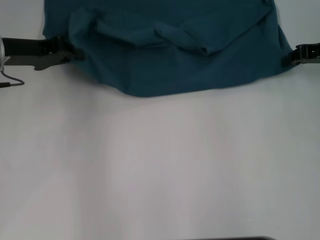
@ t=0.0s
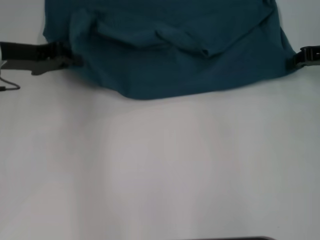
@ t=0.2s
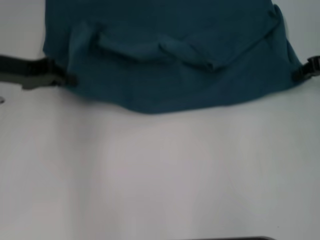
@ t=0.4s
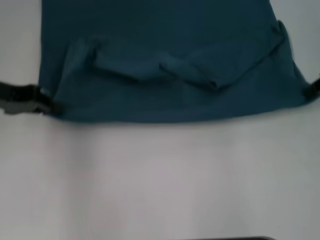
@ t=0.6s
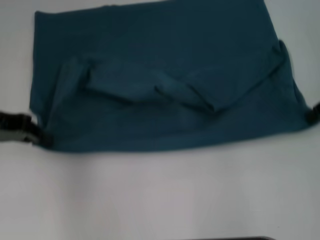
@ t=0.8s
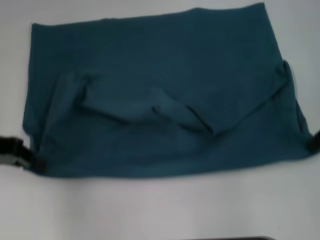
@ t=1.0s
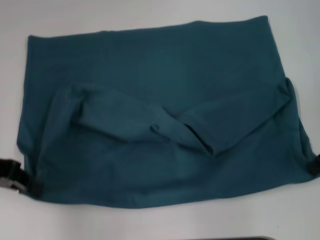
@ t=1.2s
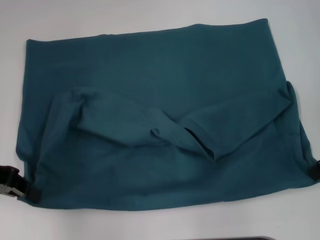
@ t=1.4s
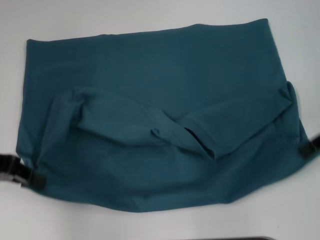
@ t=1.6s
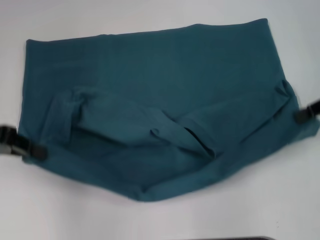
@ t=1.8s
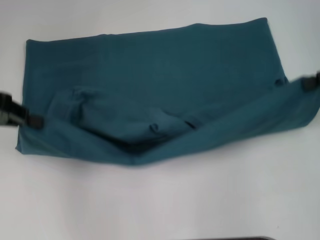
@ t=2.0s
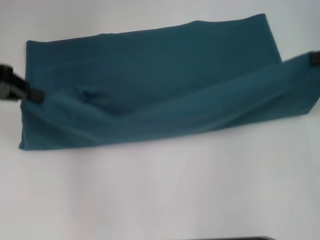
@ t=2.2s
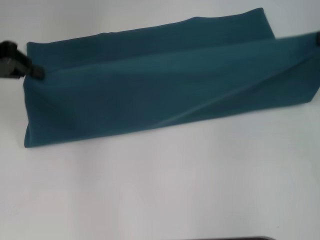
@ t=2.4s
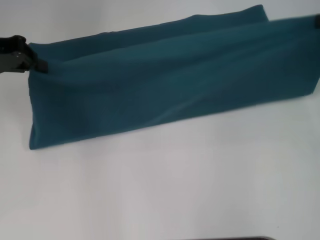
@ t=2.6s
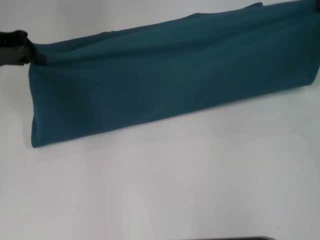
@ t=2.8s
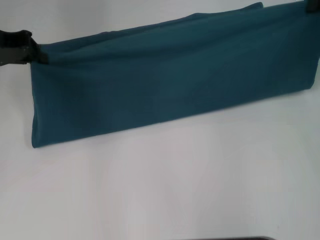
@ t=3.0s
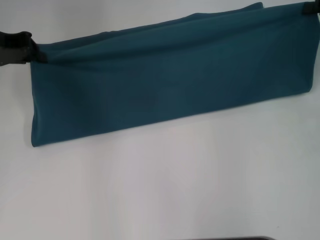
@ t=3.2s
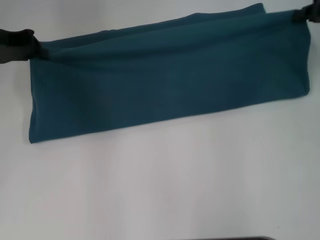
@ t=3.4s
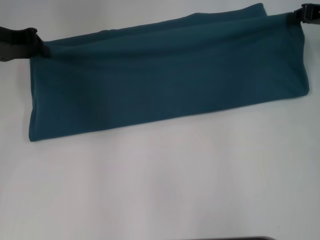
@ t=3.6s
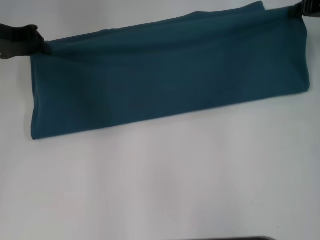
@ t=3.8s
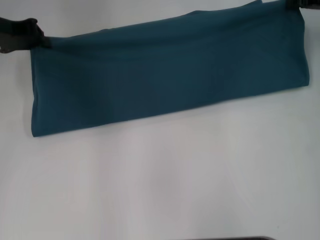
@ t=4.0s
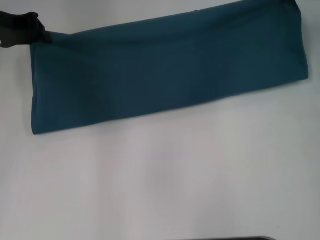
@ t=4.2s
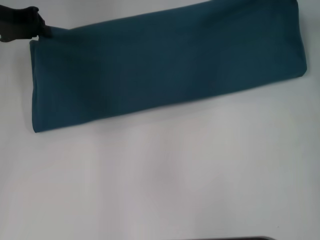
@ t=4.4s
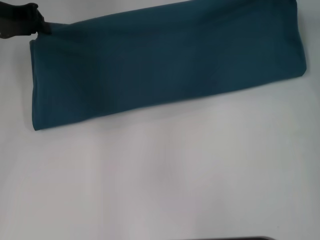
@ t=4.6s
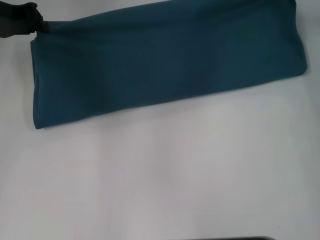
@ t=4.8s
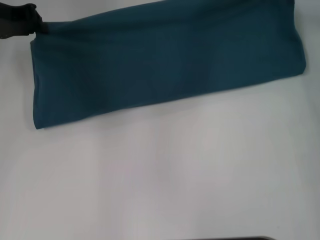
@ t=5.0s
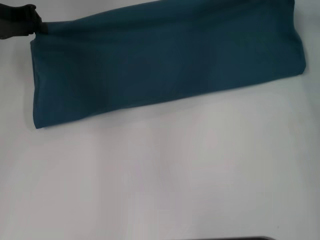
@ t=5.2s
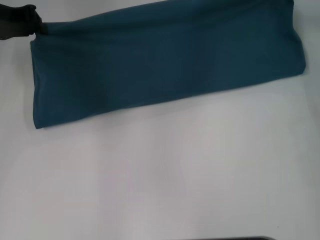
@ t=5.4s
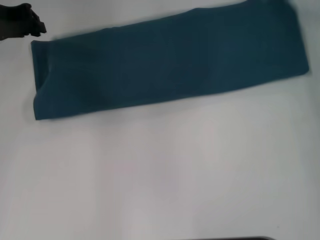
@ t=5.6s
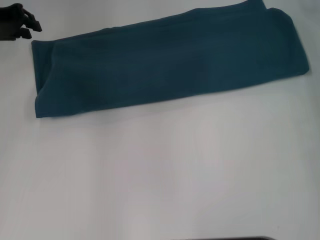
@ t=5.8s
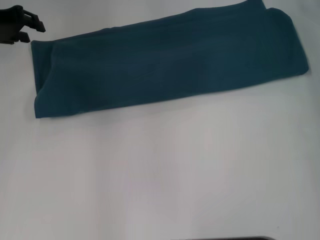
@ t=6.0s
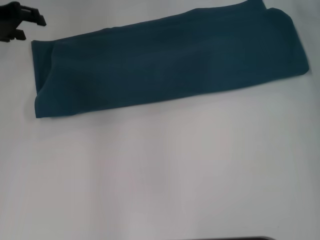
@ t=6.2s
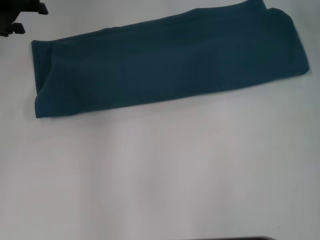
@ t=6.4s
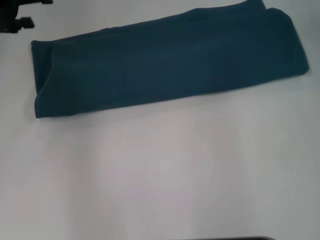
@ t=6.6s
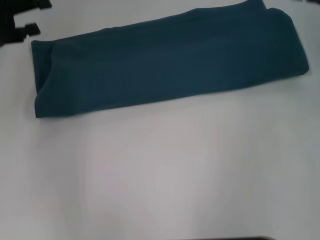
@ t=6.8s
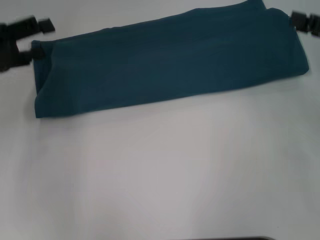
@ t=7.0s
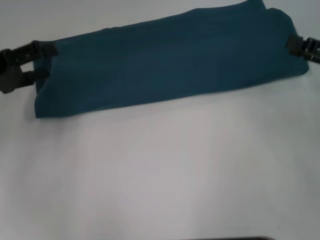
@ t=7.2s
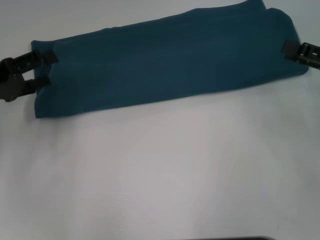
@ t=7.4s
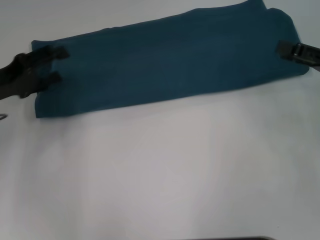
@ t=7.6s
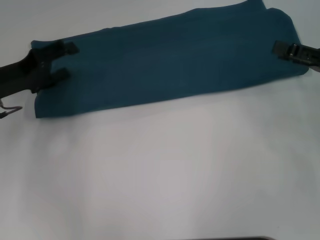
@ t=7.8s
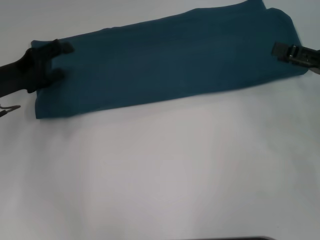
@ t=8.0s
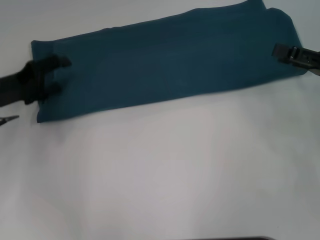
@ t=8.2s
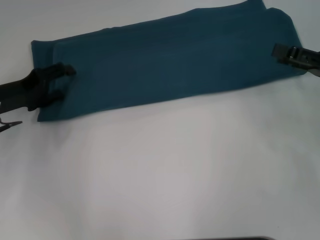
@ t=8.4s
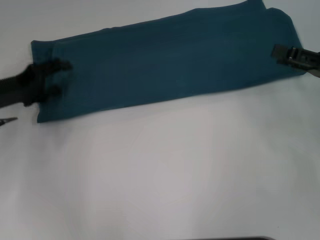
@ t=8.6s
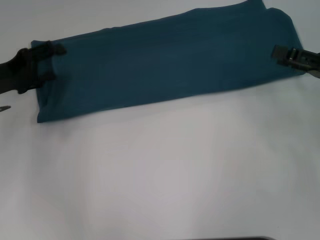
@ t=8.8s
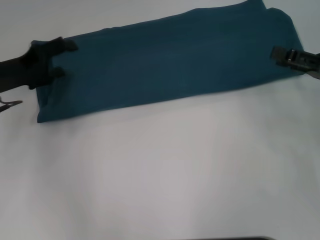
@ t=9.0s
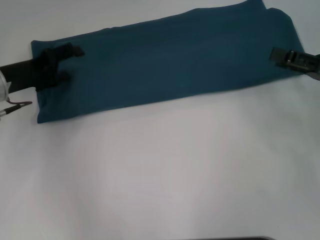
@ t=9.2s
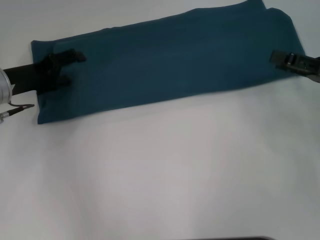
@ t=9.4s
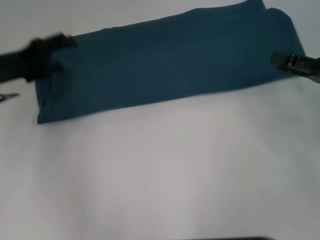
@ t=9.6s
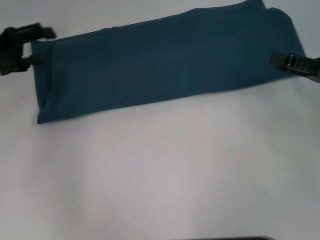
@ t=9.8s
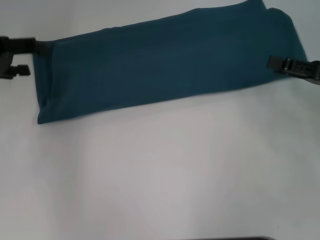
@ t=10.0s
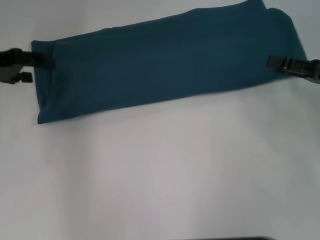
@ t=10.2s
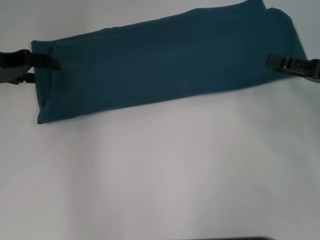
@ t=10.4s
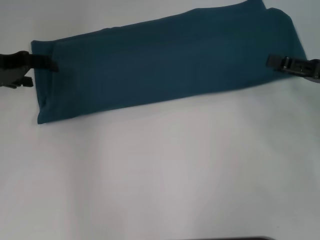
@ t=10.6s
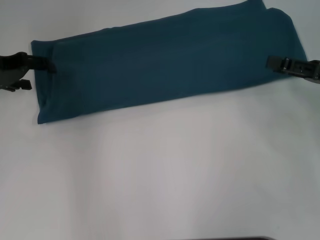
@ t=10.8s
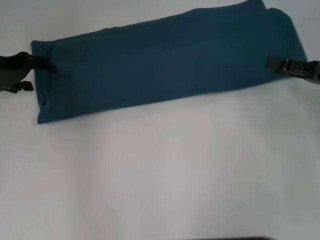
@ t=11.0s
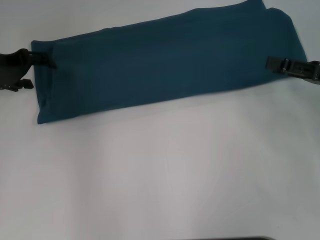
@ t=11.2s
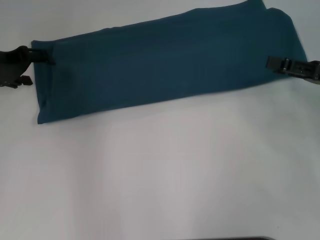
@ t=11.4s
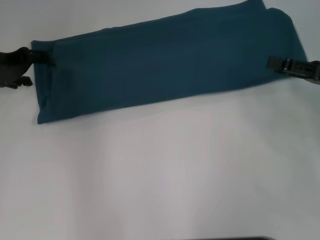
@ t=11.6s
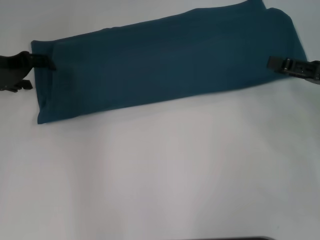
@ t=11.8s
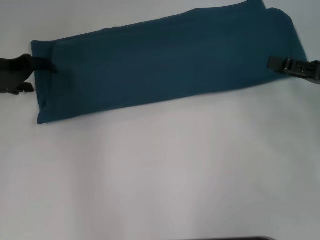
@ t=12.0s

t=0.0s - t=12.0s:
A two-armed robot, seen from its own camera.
Step, t=1.4s - t=5.6s: Fold the clothes to the left.
Step, t=1.4s - t=5.6s: Fold the clothes to the right.
t=0.0s - t=1.6s: Both grippers move backward, roughly 10 cm.
t=1.6s - t=3.0s: The right gripper is displaced forward by approximately 5 cm, while the left gripper shifts some 10 cm forward.
t=3.0s - t=4.4s: The right gripper moves to the left and forward, roughly 10 cm.
t=4.4s - t=6.0s: The grippers make only small movements.
t=6.0s - t=7.6s: The right gripper is displaced backward and downward by approximately 20 cm, and opens. The left gripper travels backward and downward by approximately 15 cm, and opens its fingers.
t=7.6s - t=9.0s: The grippers stay close to where they were, moving slightly.
t=9.0s - t=10.4s: The left gripper moves upward, some 5 cm.
t=10.4s - t=12.0s: There are only small adjustments of the grippers.

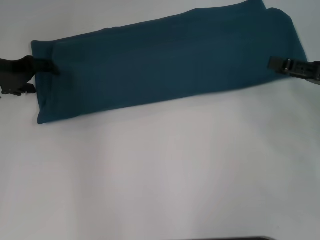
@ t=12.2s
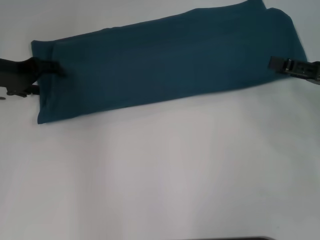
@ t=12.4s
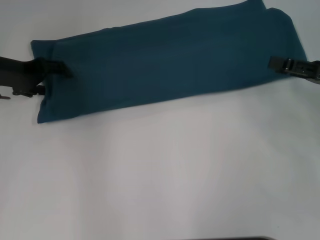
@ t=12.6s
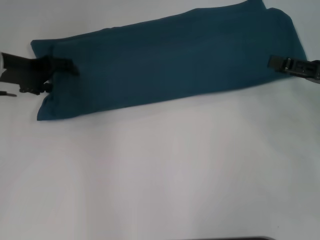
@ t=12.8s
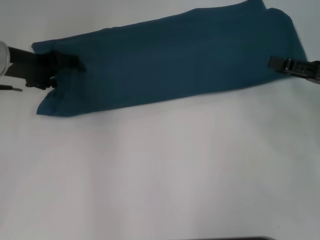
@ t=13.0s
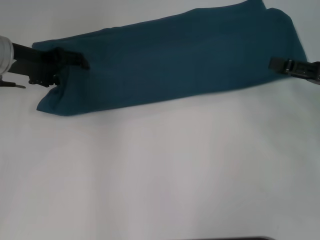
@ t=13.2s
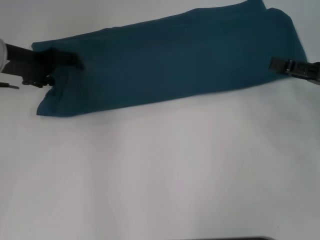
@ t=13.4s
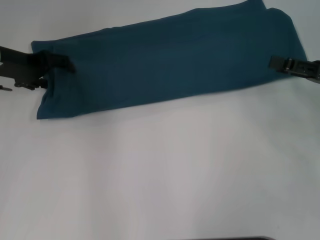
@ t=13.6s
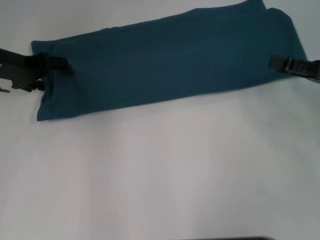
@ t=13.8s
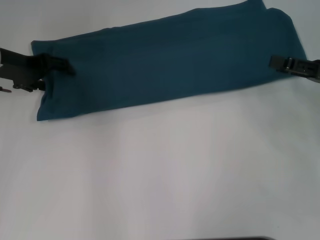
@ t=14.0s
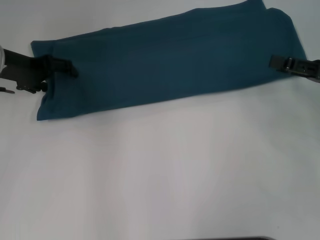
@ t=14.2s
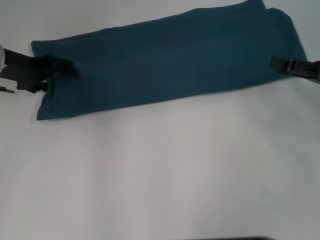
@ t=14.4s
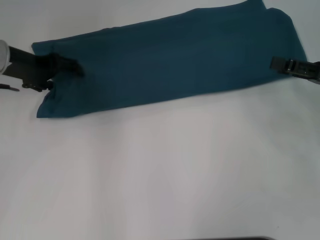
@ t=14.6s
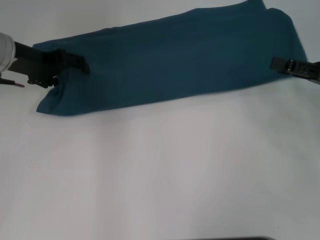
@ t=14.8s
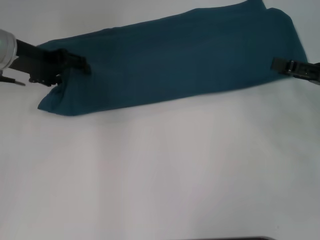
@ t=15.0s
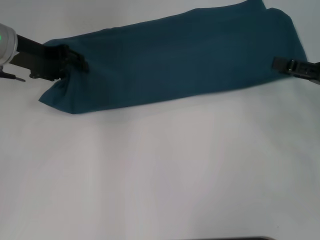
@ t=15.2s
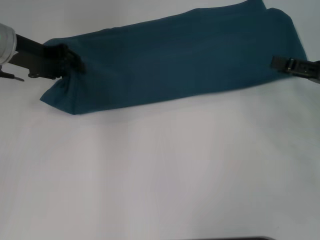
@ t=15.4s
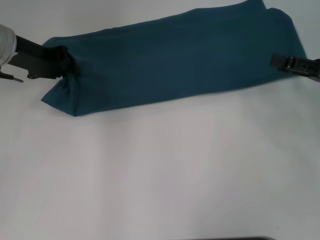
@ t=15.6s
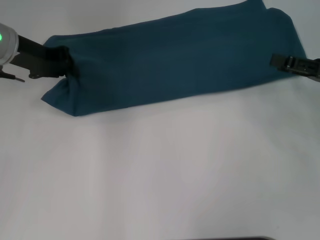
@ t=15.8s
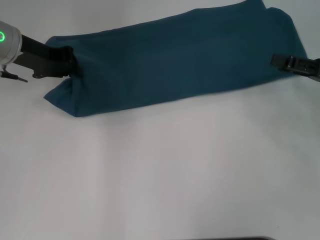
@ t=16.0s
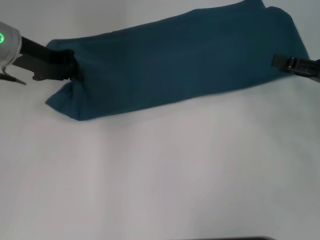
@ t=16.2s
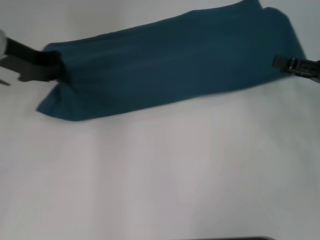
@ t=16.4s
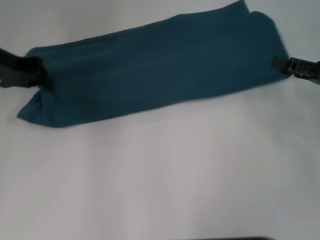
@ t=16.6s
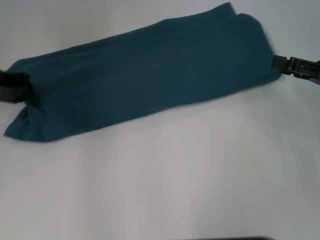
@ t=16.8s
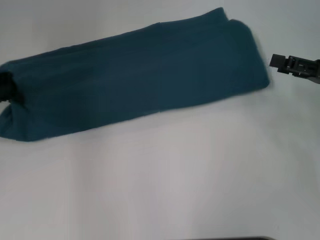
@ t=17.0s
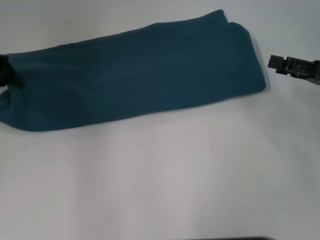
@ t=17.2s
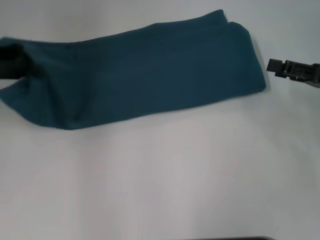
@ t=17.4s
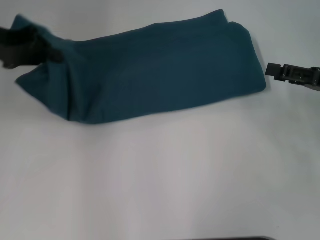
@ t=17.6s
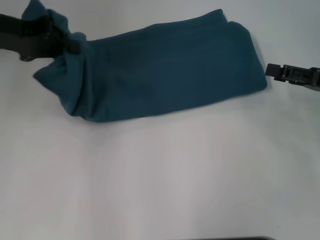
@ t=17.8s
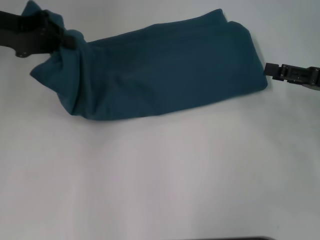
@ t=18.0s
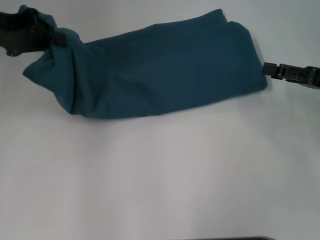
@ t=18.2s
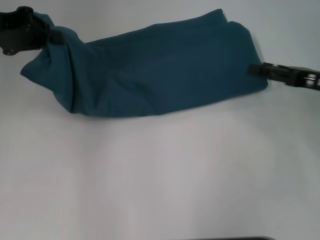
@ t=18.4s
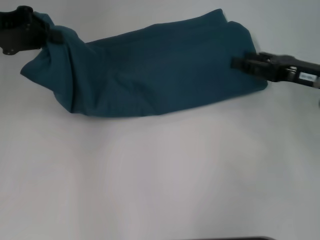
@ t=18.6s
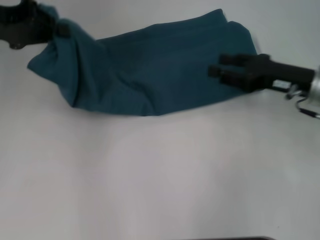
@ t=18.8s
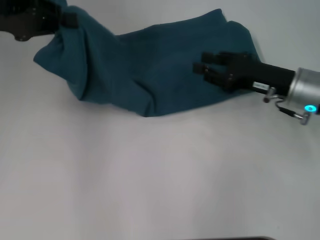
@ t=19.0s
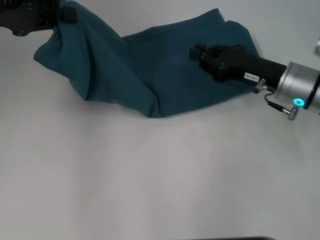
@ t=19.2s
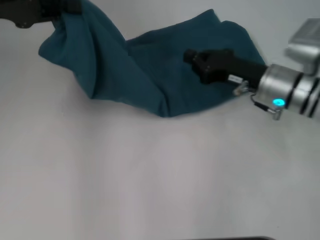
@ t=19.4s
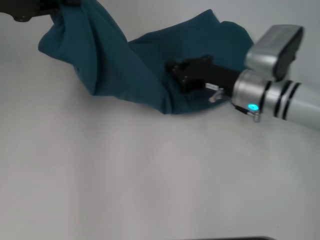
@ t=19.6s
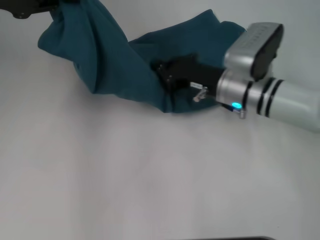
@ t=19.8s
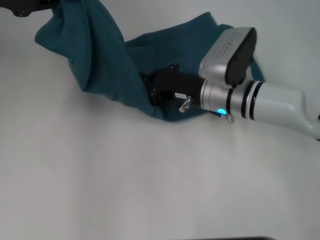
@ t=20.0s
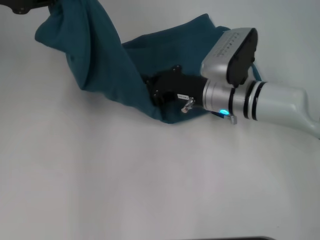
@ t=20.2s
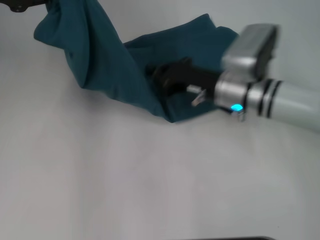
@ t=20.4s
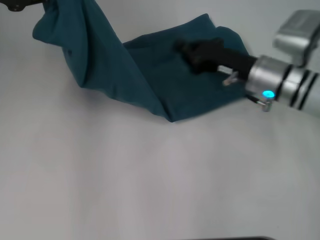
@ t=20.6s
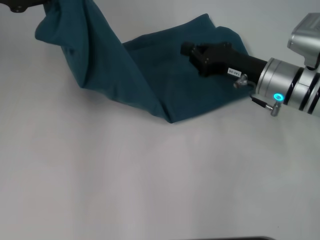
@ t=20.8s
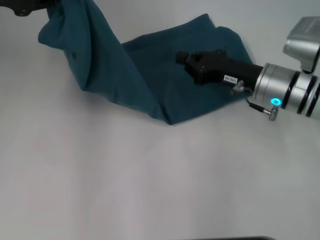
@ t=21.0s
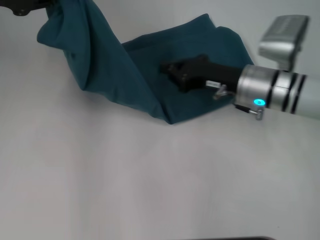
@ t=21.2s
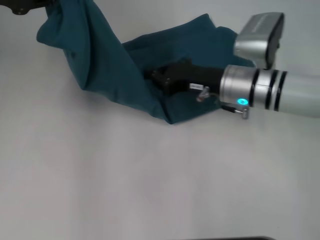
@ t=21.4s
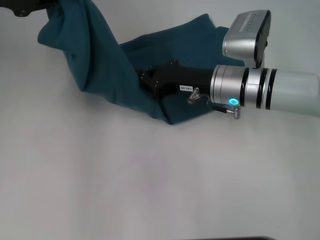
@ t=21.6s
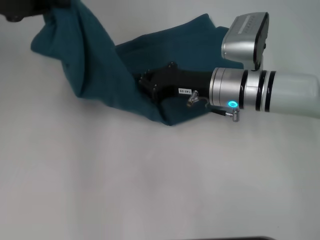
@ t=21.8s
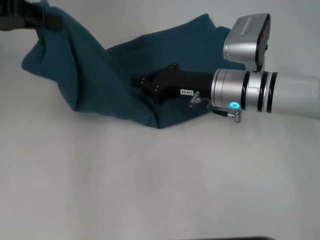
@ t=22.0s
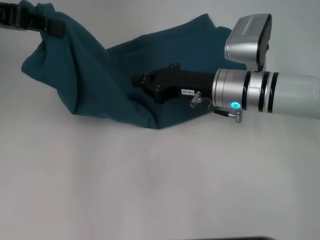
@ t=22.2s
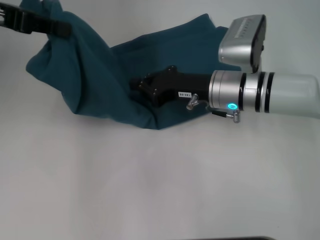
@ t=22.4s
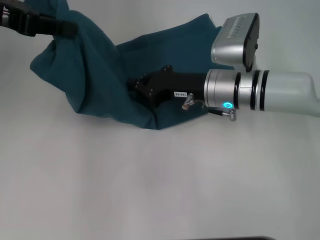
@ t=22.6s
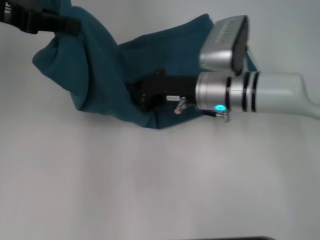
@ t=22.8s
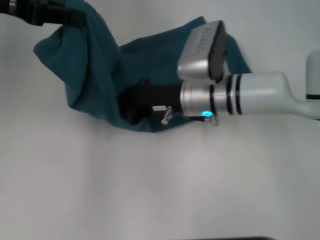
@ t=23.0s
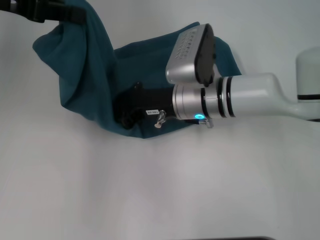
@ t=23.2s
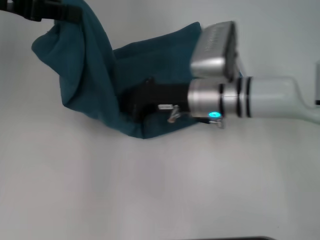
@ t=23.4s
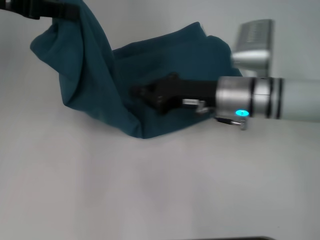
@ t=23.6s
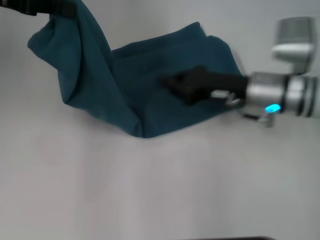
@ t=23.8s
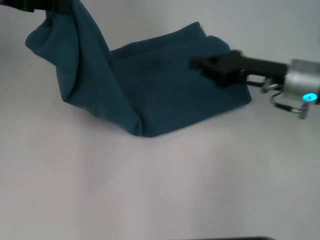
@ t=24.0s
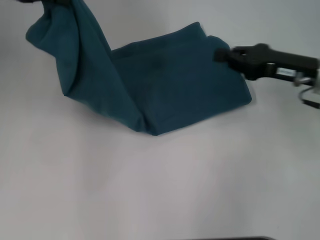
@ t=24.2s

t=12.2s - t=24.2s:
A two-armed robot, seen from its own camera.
Step, t=12.2s - t=22.0s: Press the middle of the clothes with your right hand.
t=12.2s - t=13.8s: There are only small adjustments of the grippers.
t=13.8s - t=15.2s: The grippers move only a little.
t=15.2s - t=16.6s: The left gripper closes up.
t=18.2s - t=19.8s: The right gripper shifts some 20 cm to the left, and closes its fingers.
t=19.8s - t=21.2s: The grippers stay close to where they were, moving slightly.
t=21.2s - t=22.6s: The right gripper moves to the left, some 5 cm.
t=22.6s - t=24.2s: The right gripper heads to the right, covering roughly 15 cm.
